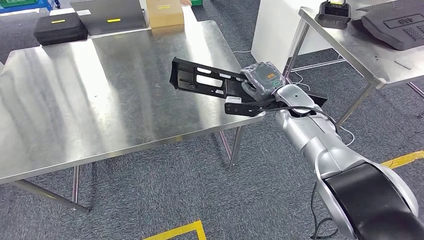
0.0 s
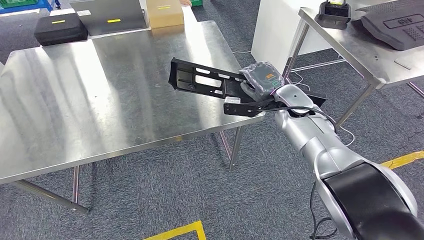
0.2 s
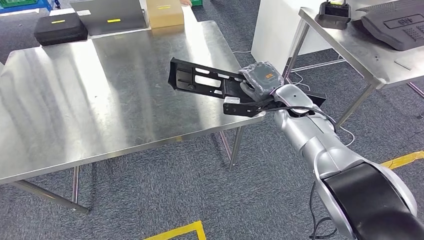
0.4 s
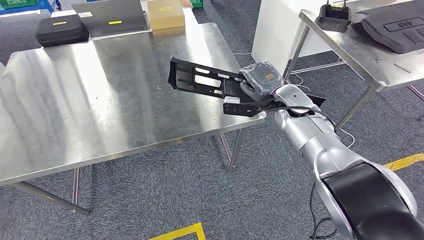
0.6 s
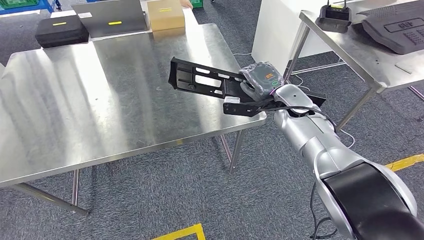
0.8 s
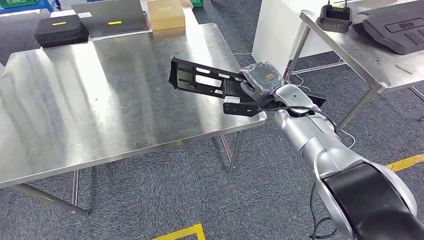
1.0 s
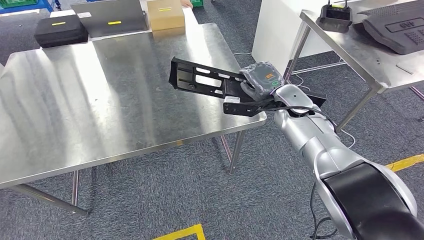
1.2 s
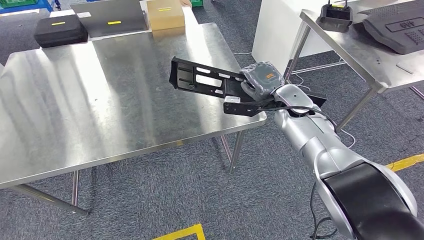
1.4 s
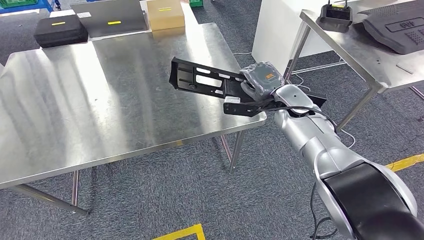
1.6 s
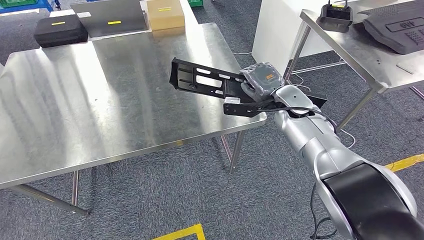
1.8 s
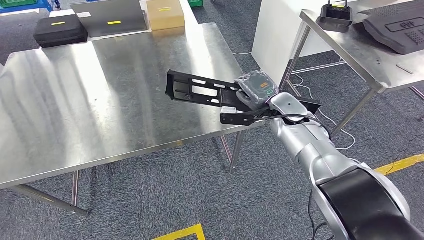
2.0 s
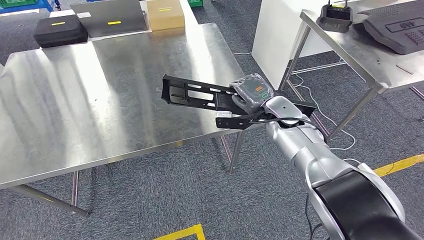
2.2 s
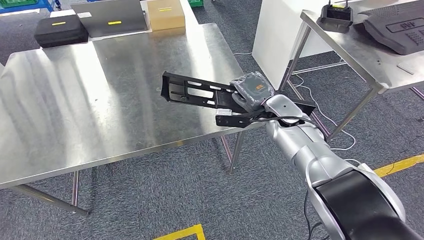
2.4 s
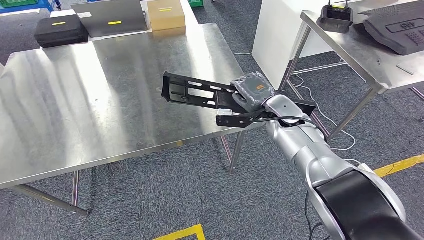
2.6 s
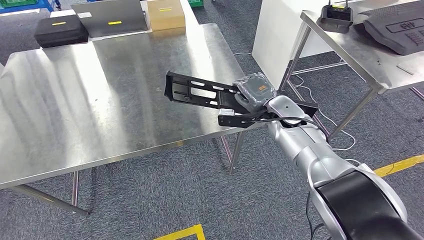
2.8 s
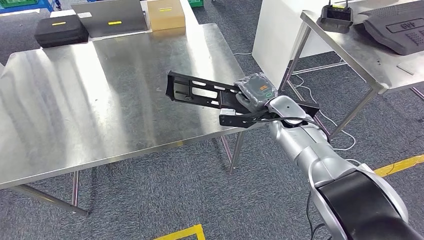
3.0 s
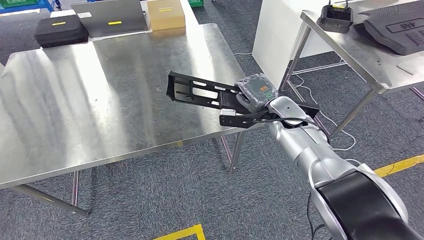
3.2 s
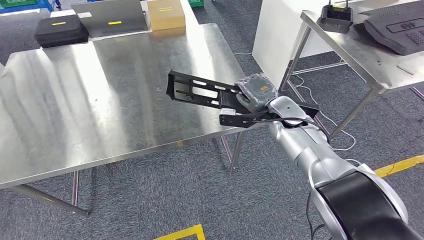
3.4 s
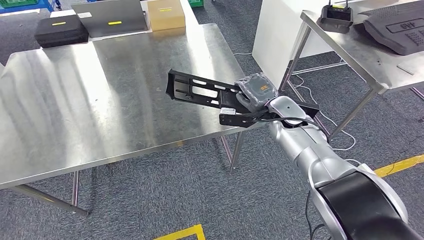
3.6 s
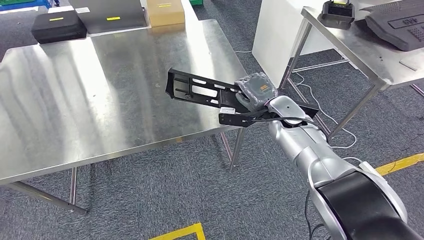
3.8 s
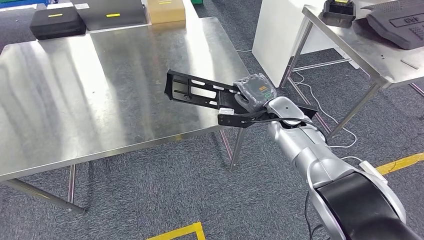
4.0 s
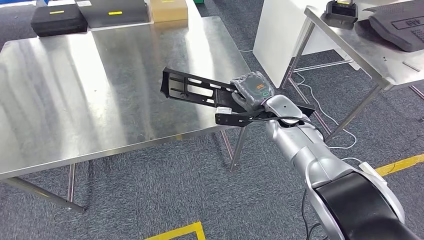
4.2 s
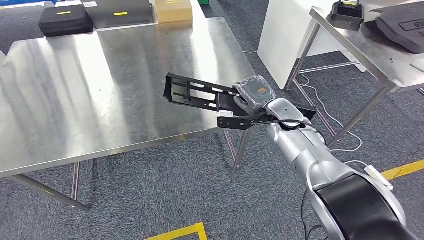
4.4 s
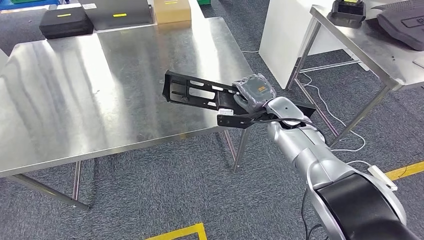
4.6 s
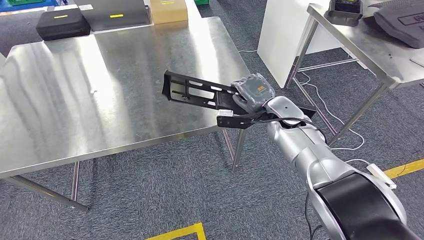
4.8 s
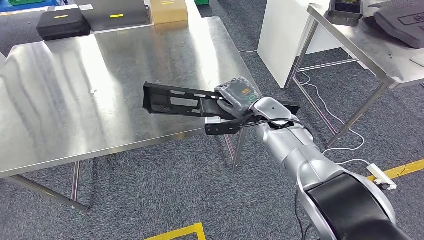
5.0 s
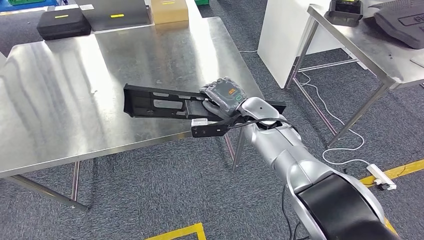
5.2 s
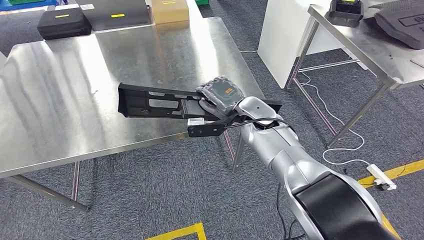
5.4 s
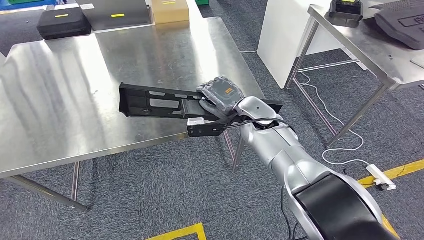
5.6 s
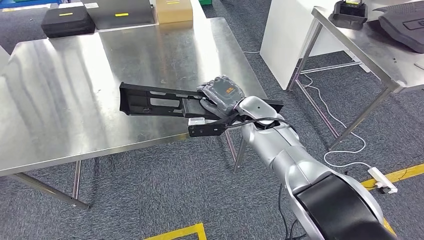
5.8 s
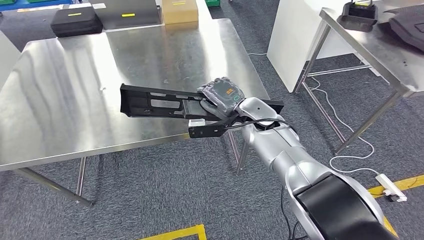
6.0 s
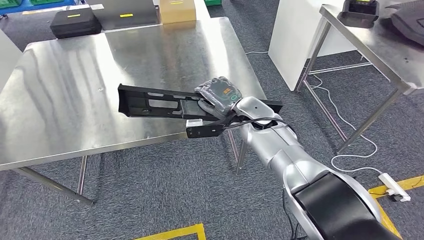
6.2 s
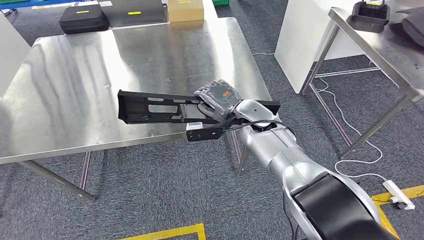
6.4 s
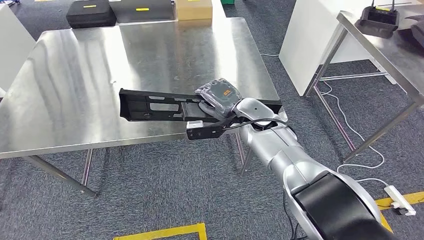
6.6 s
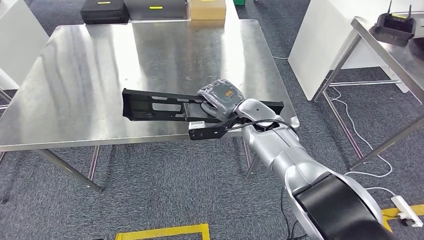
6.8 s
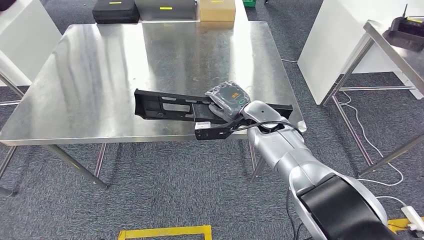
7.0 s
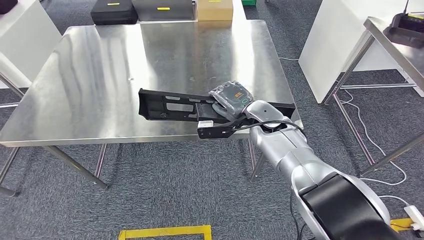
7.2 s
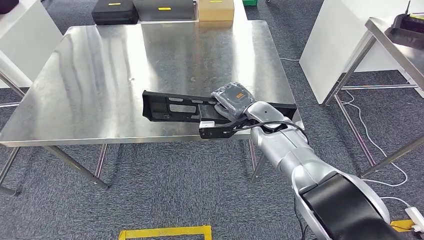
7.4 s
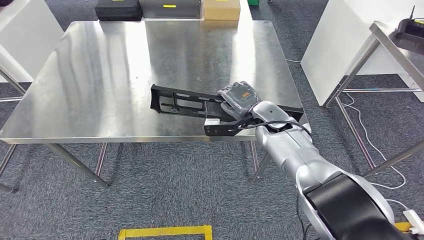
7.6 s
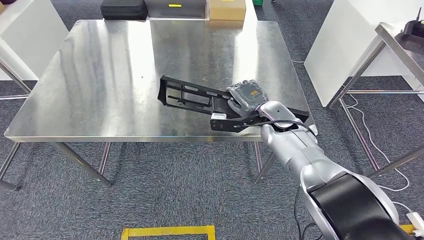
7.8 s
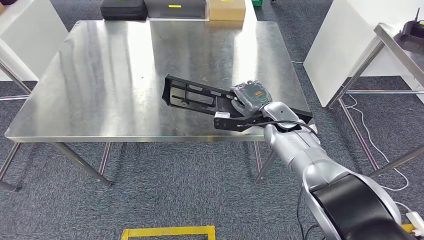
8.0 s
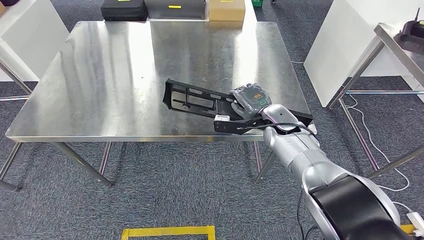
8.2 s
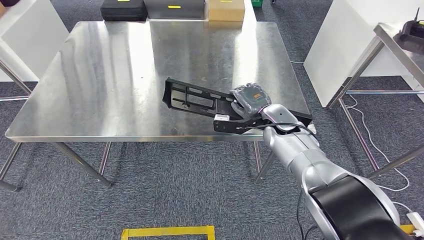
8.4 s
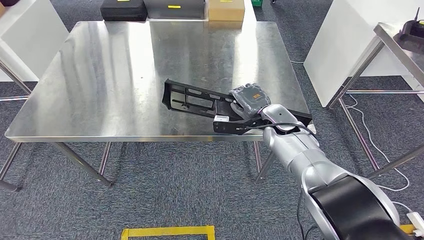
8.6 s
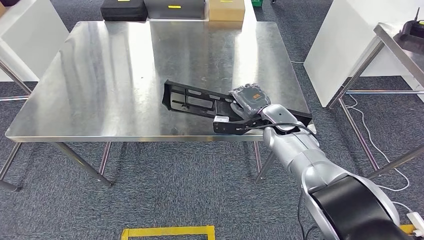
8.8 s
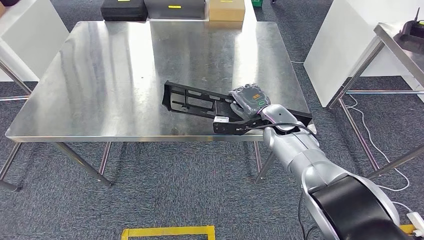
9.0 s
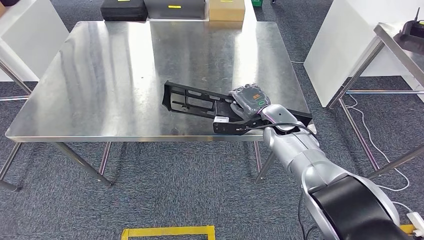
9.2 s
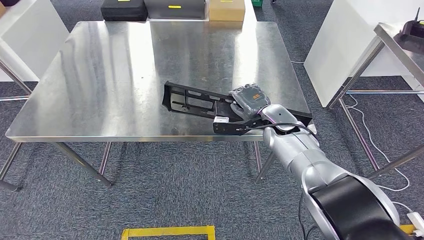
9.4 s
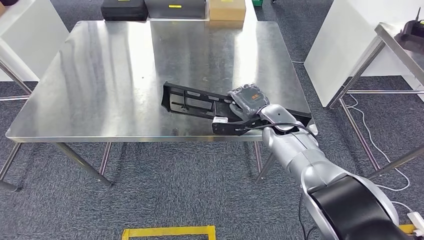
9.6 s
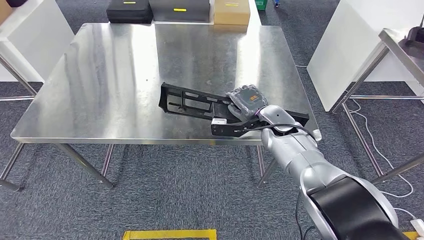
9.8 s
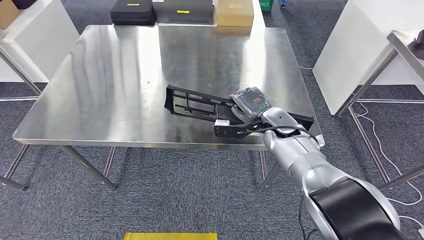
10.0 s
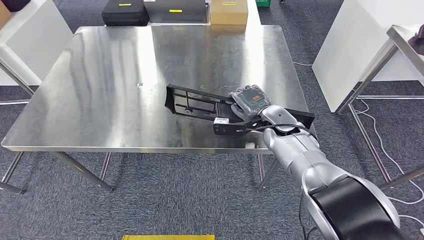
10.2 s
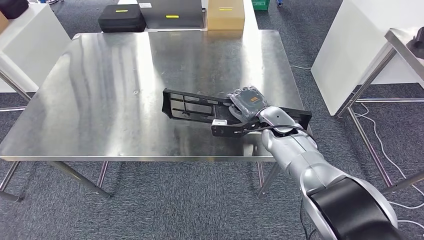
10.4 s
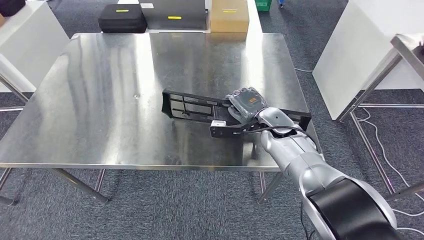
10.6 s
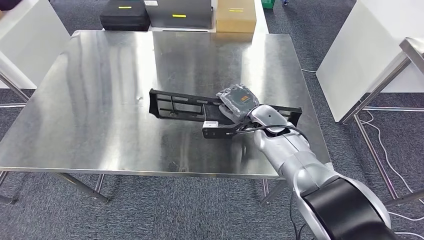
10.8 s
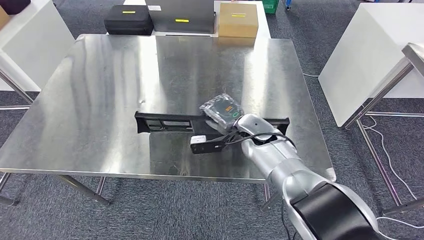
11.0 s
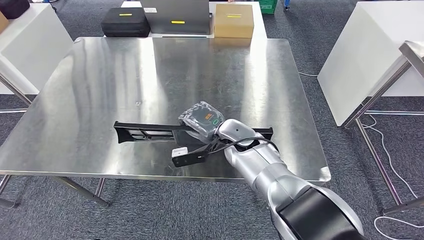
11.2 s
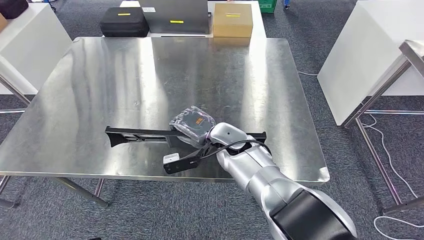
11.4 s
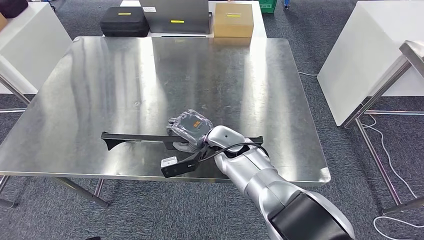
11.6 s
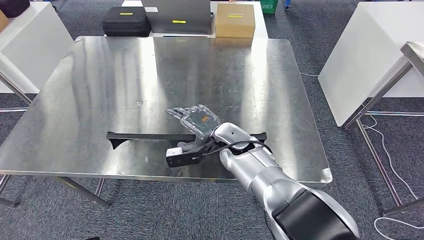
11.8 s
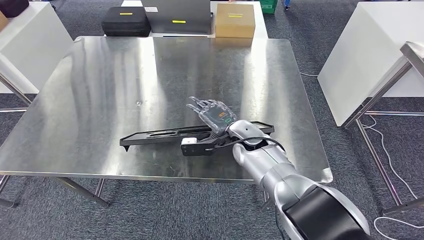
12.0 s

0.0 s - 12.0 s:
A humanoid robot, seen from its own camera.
0.0 s - 1.6 s: The two hands keep their place.
1.6 s - 3.0 s: The hands stay close to where they were, moving slightly.
7.6 s - 9.0 s: The hands stay close to where they were, moving slightly.

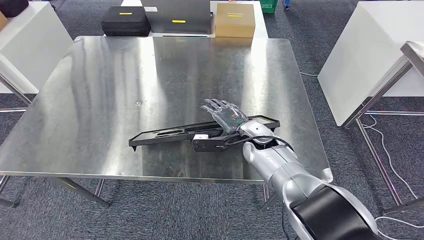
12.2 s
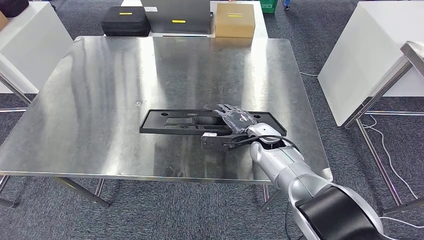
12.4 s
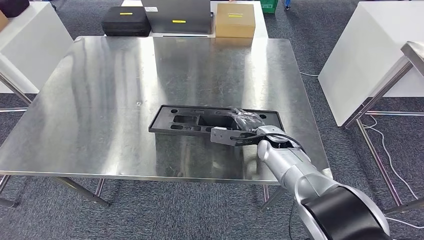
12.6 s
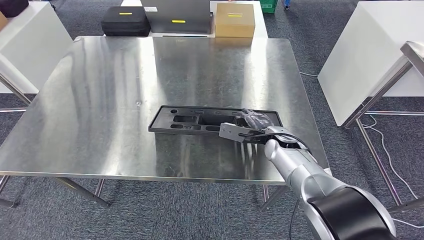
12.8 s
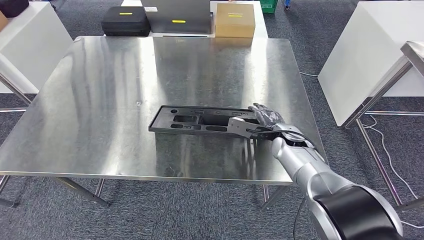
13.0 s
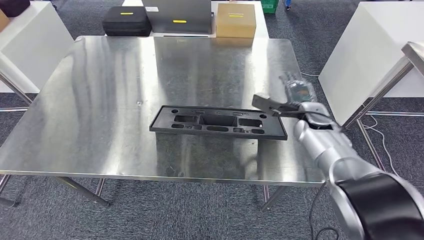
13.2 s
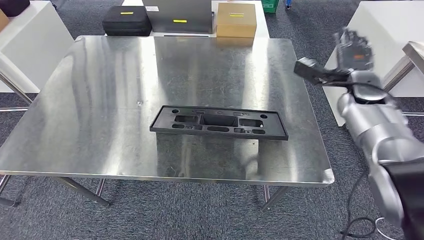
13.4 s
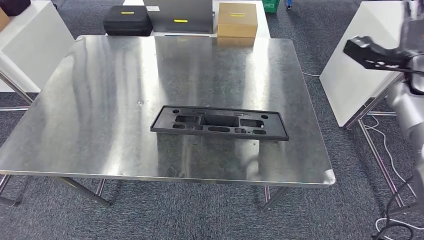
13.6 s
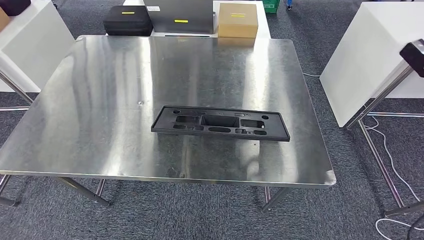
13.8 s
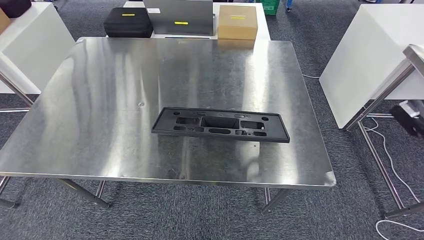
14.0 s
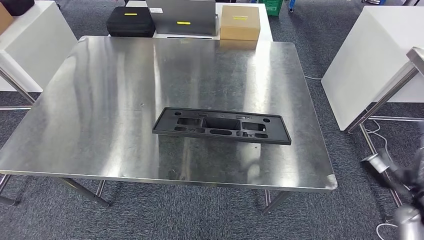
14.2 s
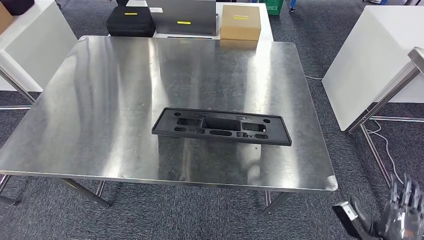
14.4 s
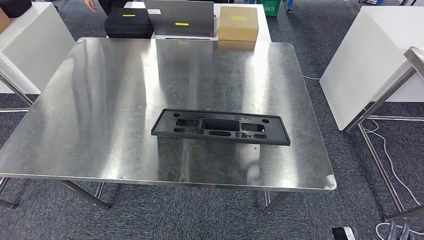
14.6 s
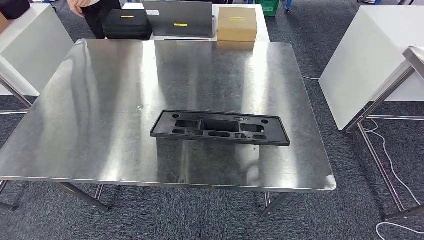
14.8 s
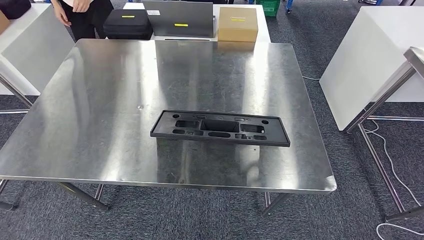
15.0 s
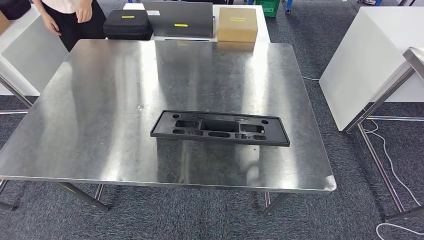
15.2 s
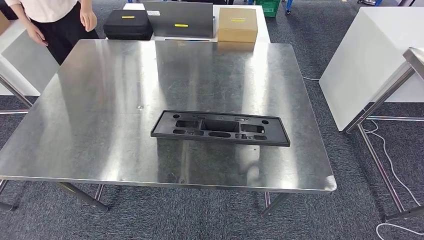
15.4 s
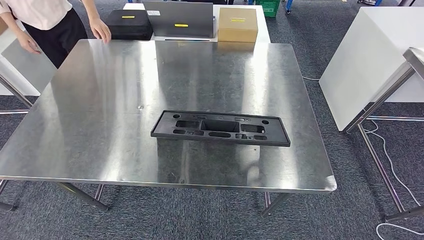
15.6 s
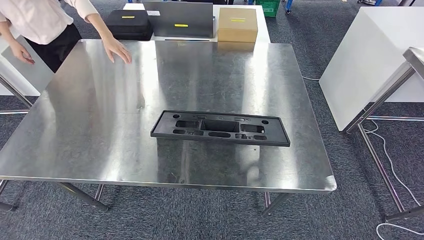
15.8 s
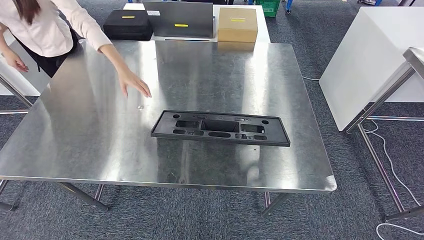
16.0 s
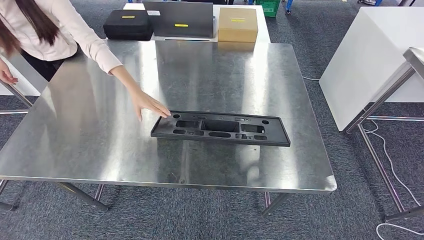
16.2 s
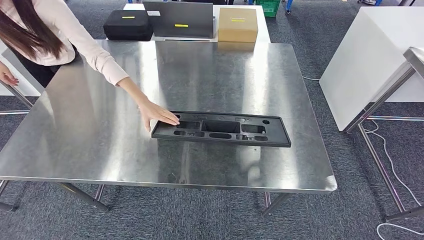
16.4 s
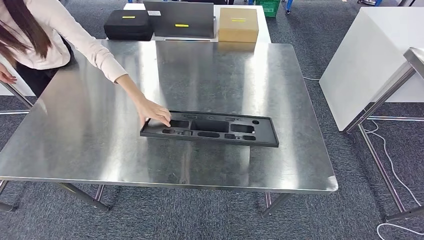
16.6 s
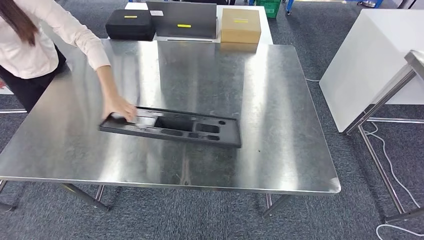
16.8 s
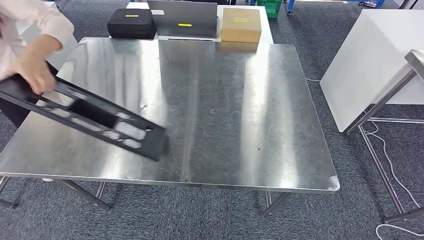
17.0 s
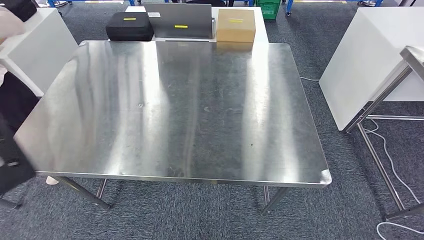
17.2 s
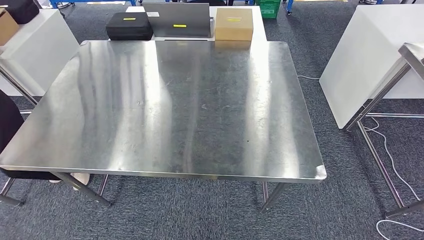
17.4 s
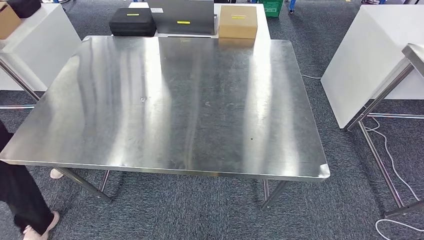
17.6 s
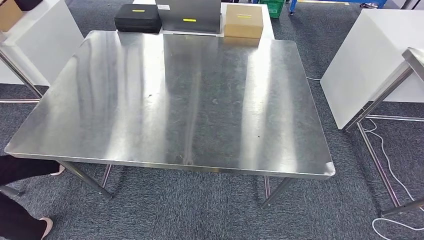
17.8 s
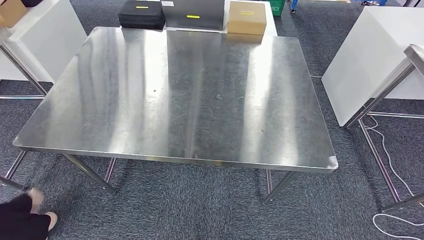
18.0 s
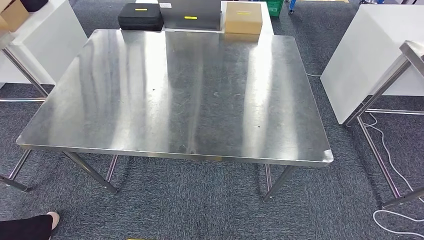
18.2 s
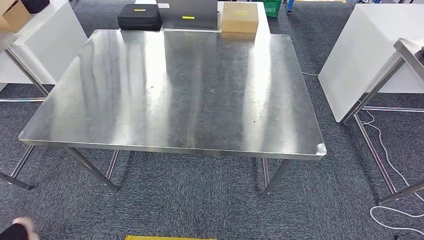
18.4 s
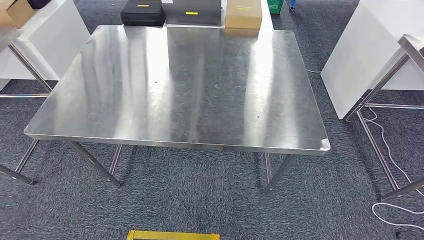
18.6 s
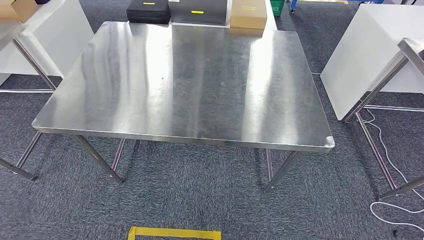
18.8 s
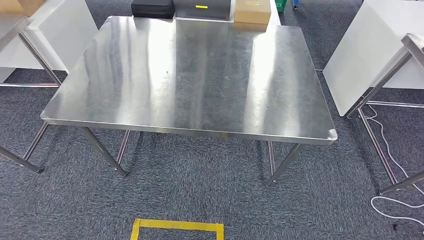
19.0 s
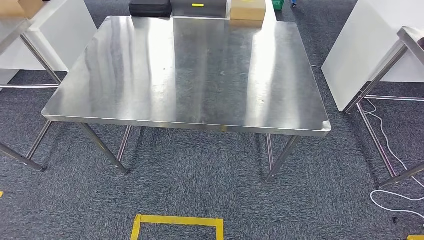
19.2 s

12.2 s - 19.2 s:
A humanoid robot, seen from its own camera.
15.0 s - 16.4 s: There are only small adjustments of the hands.
